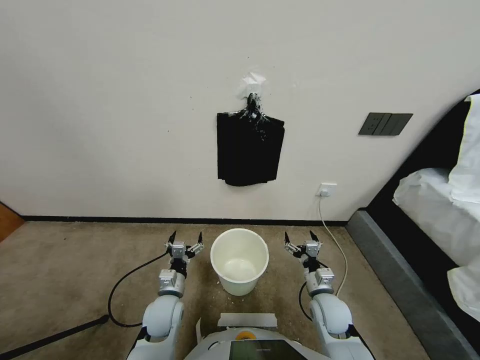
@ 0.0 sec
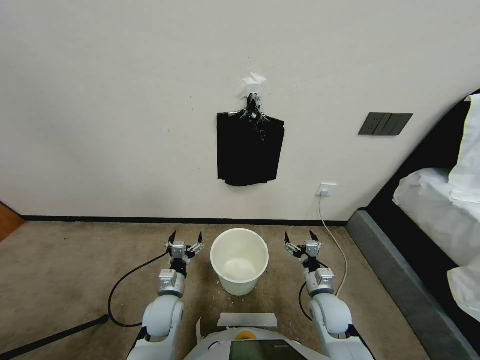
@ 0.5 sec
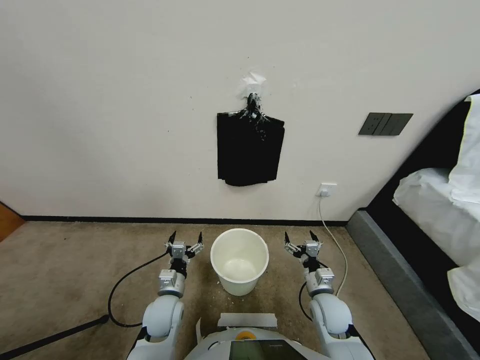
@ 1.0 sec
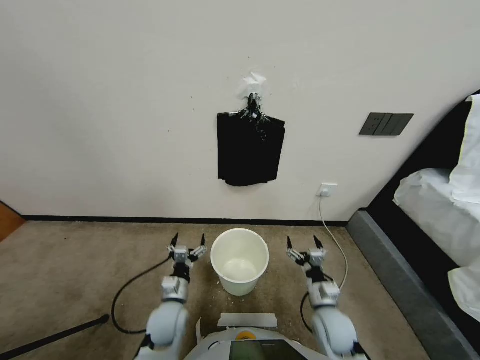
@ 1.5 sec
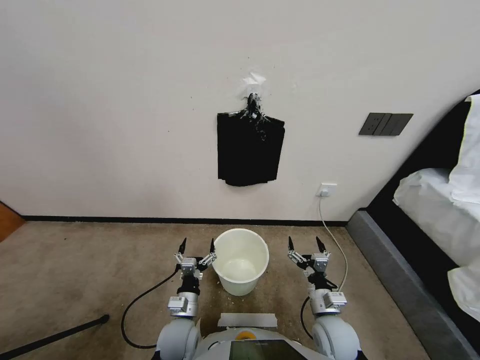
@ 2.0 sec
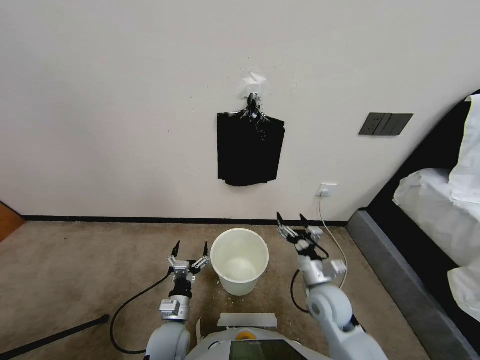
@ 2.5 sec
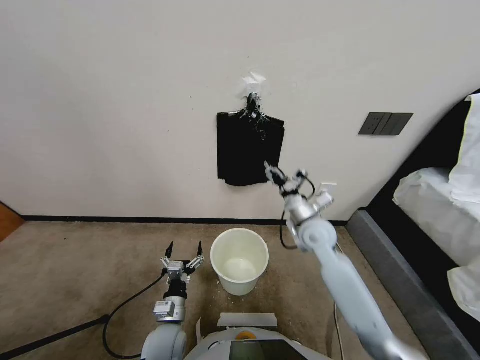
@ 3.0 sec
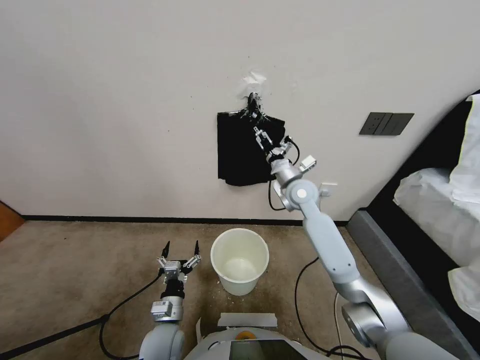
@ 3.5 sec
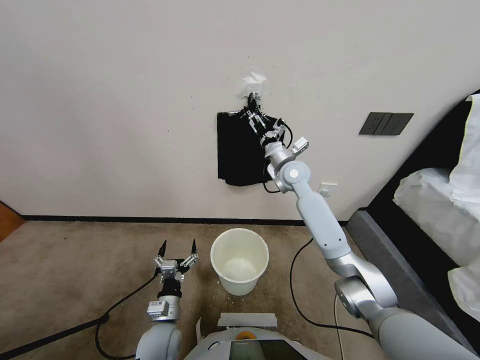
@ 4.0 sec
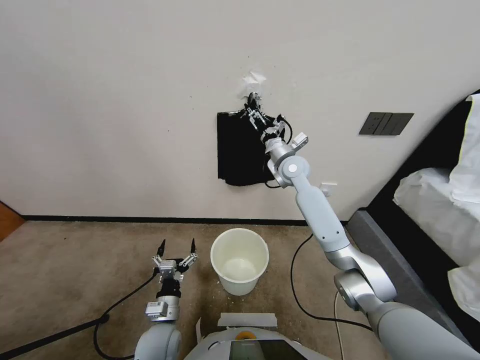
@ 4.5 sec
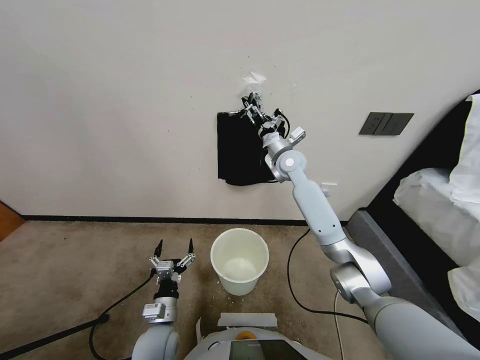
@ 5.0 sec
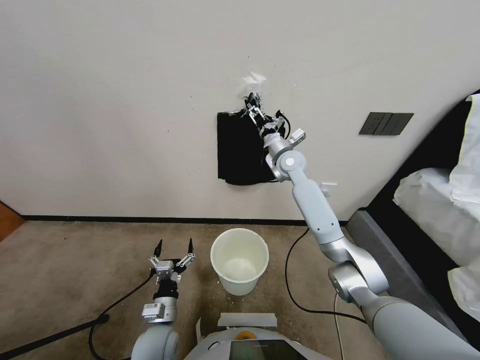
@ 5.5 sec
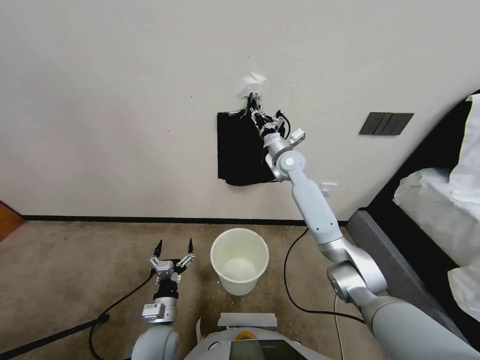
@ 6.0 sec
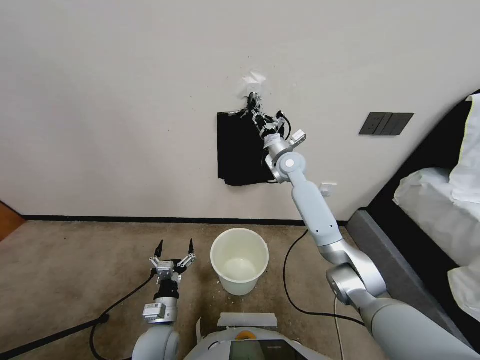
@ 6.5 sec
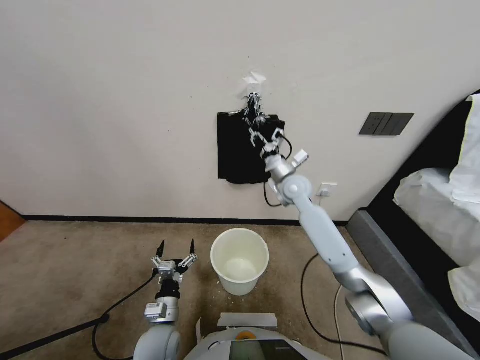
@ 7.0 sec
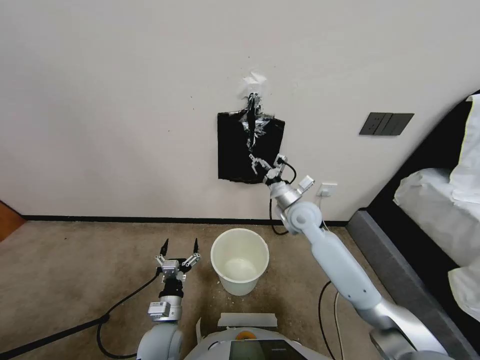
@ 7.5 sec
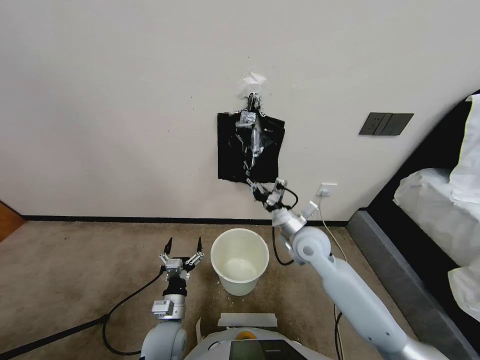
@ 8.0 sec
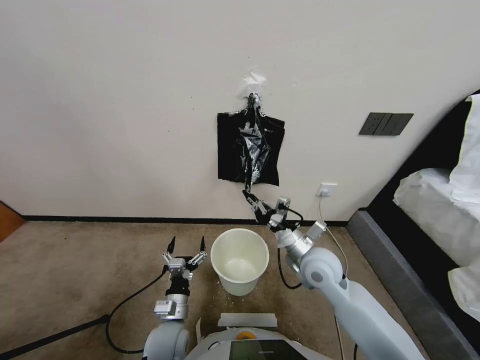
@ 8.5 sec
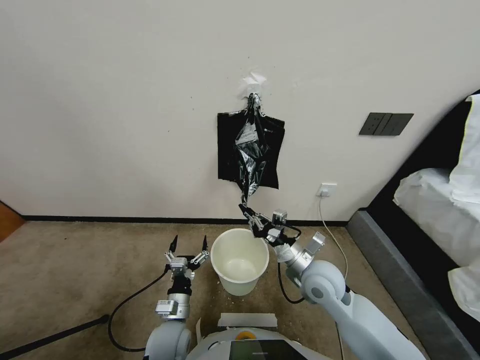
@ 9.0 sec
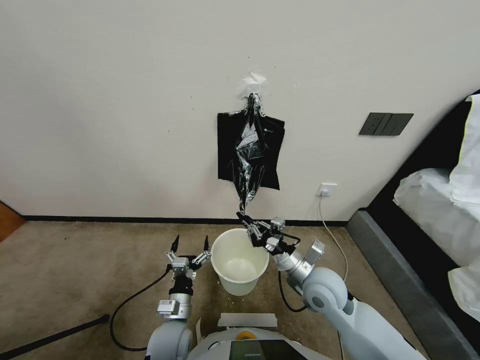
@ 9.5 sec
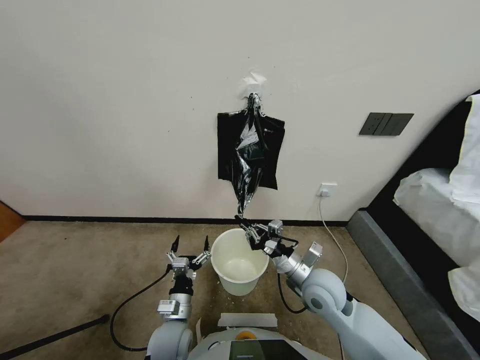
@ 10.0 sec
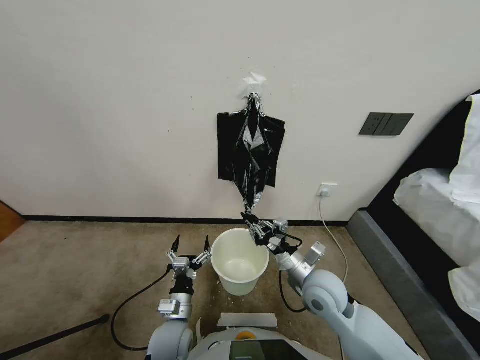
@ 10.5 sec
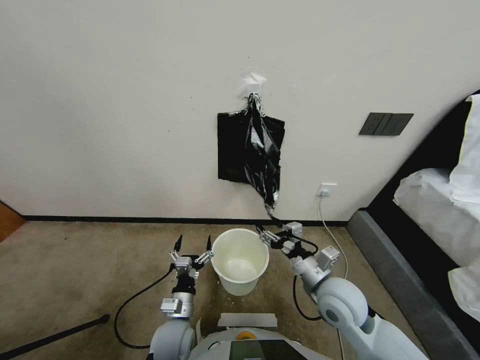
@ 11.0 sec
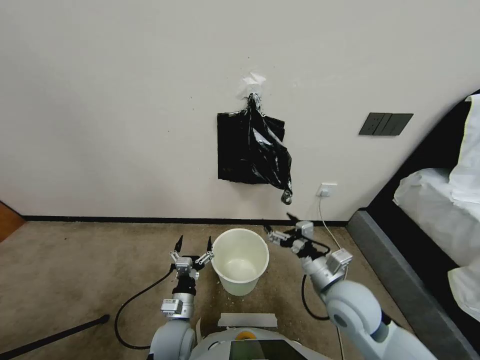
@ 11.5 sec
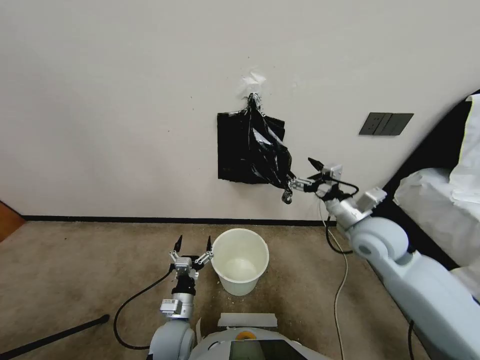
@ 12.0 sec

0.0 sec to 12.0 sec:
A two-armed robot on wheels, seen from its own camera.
Task of the whole recording: Place a trash bag onto the trash bin.
2.0 sec to 4.0 sec: The right gripper heads forward and upward, covering roughly 40 cm.
4.0 sec to 6.0 sec: The right gripper closes up.
6.0 sec to 8.0 sec: The right gripper travels backward and downward by some 25 cm.
8.0 sec to 10.0 sec: The right gripper is displaced backward by roughly 10 cm.
10.0 sec to 12.0 sec: The right gripper shifts some 20 cm upward, to the right and forward, and opens its fingers.

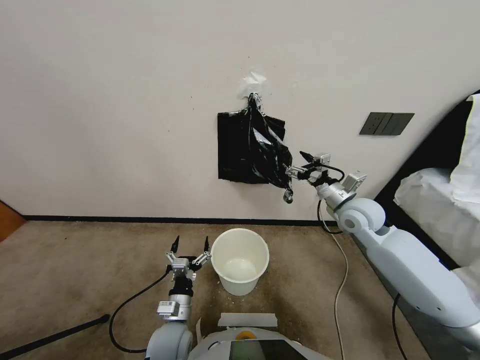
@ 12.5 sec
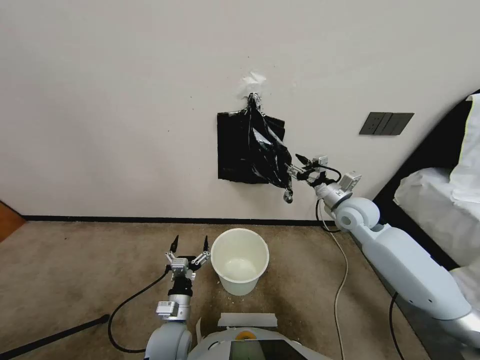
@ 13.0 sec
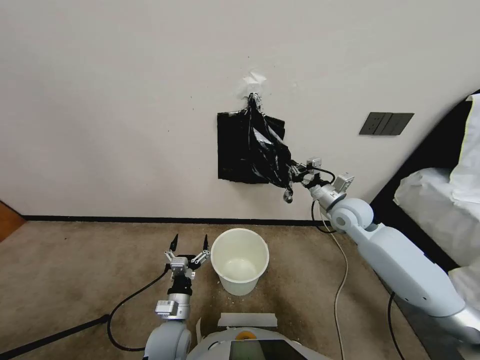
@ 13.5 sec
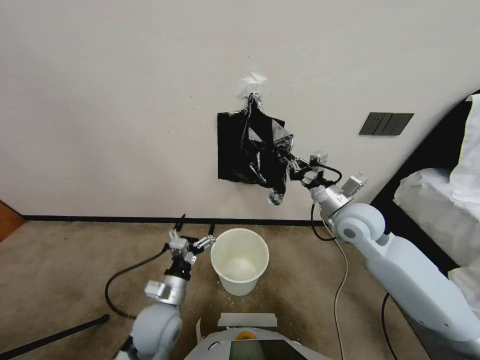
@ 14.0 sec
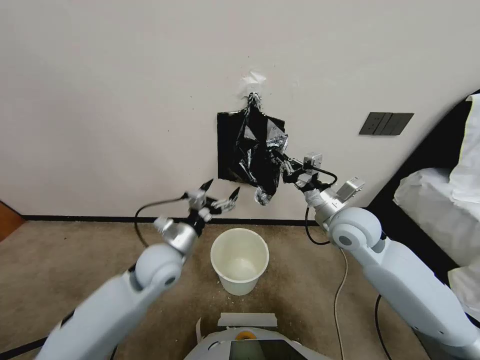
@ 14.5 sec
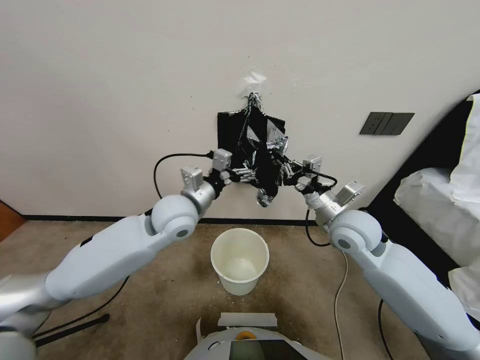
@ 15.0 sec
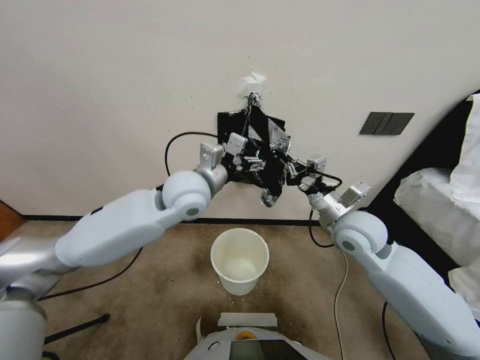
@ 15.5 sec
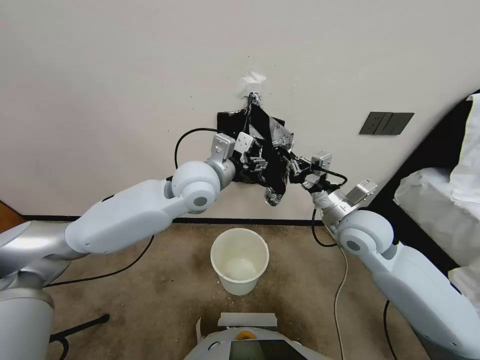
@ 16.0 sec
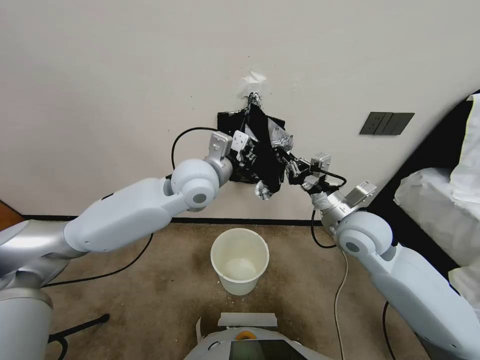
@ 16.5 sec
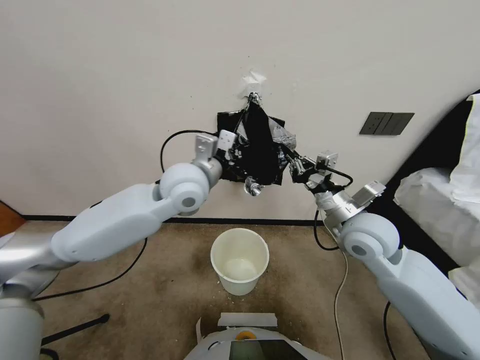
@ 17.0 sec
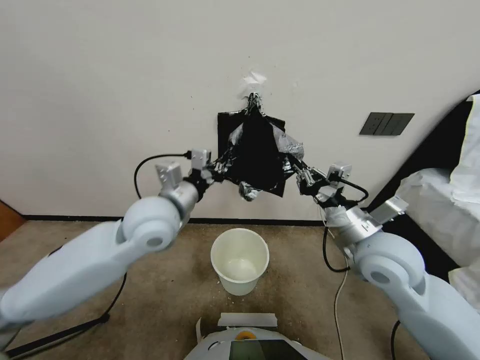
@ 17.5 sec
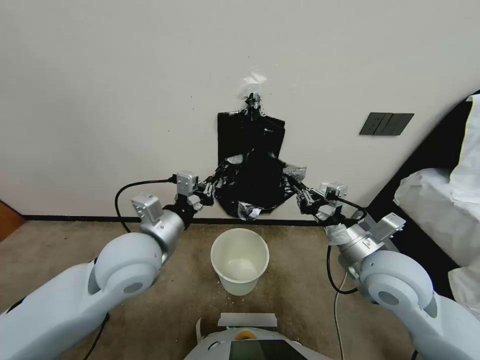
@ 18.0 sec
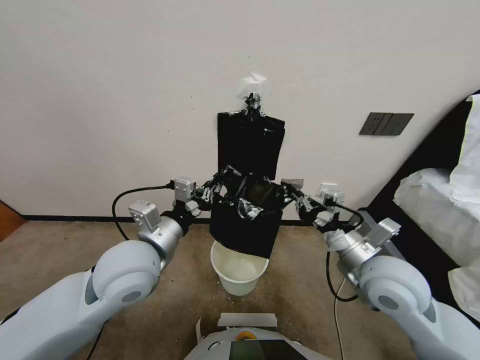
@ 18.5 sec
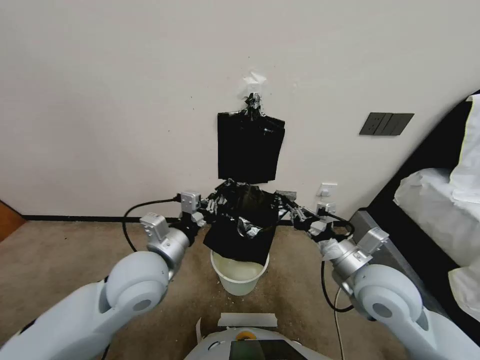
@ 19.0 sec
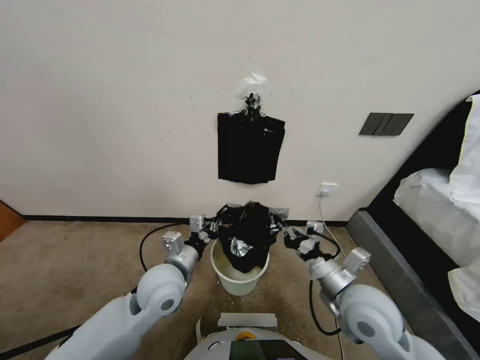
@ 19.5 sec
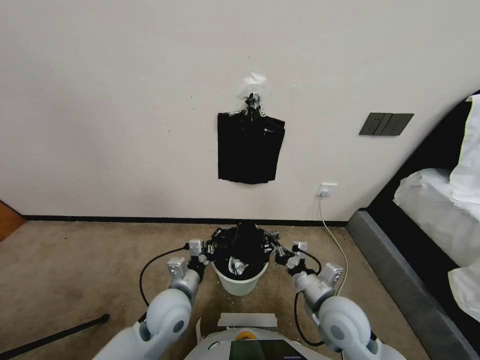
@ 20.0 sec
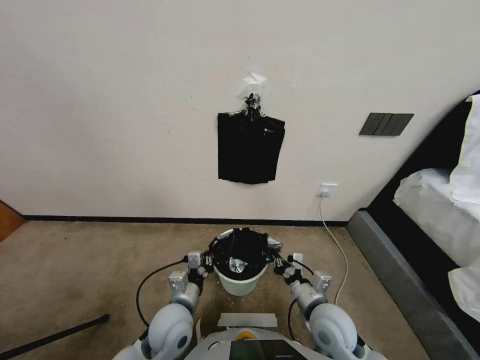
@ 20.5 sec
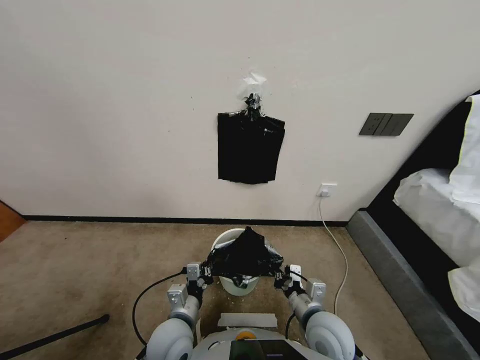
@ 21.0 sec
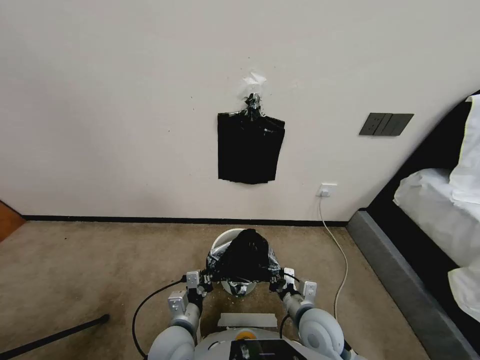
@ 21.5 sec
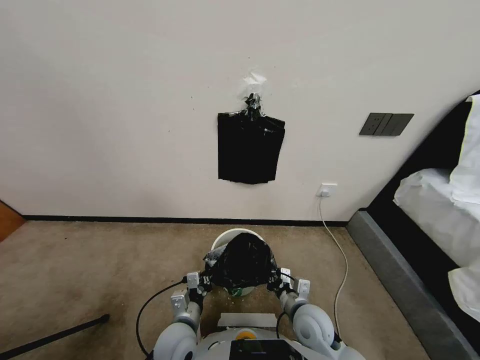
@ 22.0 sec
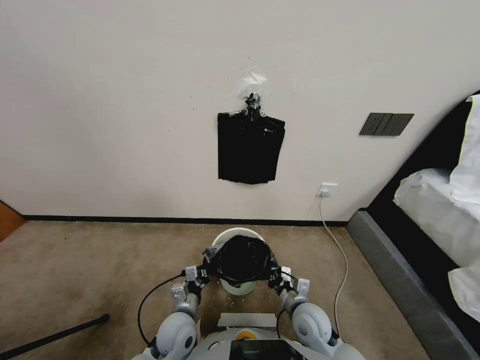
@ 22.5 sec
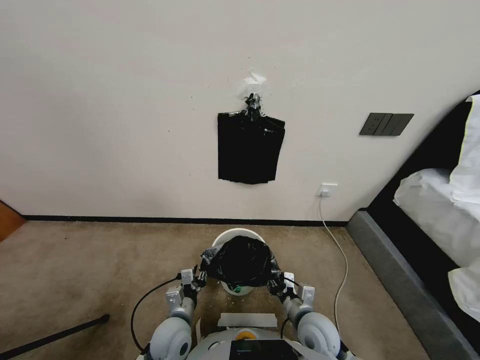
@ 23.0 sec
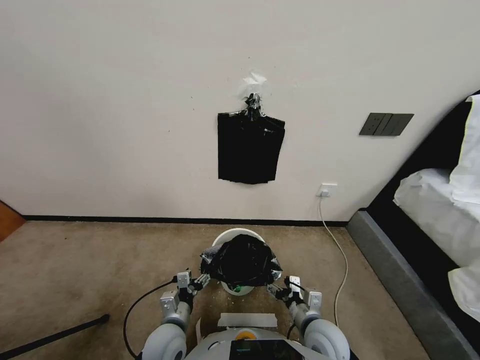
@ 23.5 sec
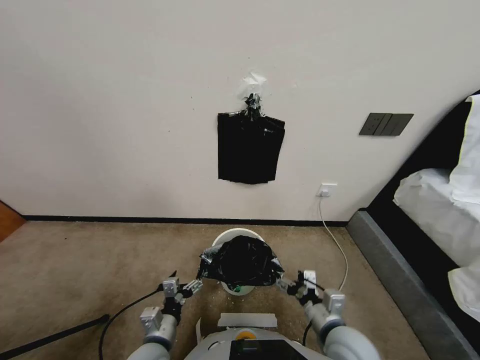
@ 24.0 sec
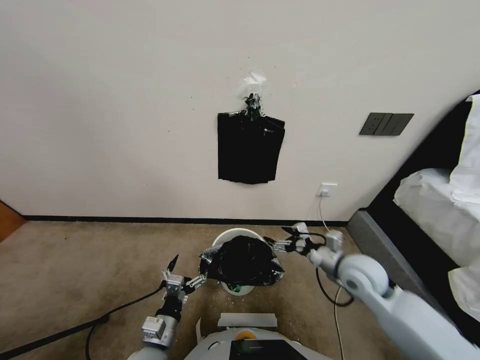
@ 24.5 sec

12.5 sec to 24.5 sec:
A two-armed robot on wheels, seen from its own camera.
Task of the whole recording: Place a trash bag onto the trash bin.
12.5 sec to 14.5 sec: The left gripper travels upward and forward by some 25 cm; the right gripper goes about 10 cm to the left and backward, and closes up.
14.5 sec to 16.5 sec: The left gripper goes roughly 15 cm upward, to the right and forward, and closes its fingers.
16.5 sec to 18.5 sec: The right gripper moves backward, approximately 10 cm; the left gripper moves backward, to the left and downward, roughly 20 cm.
18.5 sec to 20.5 sec: The grippers both shift downward by some 20 cm.
20.5 sec to 22.5 sec: The grippers both shift downward by approximately 5 cm.
22.5 sec to 24.5 sec: The right gripper travels upward, forward and to the right by about 20 cm, and opens up. The left gripper goes some 10 cm backward, and opens.

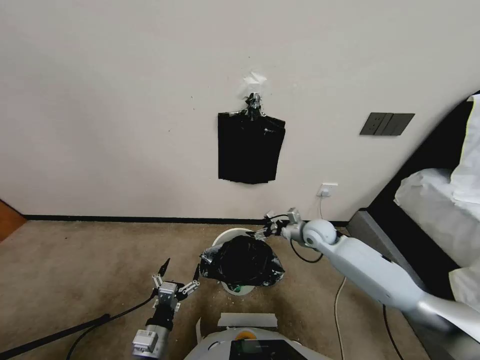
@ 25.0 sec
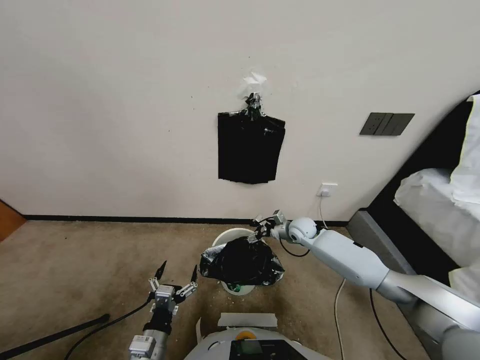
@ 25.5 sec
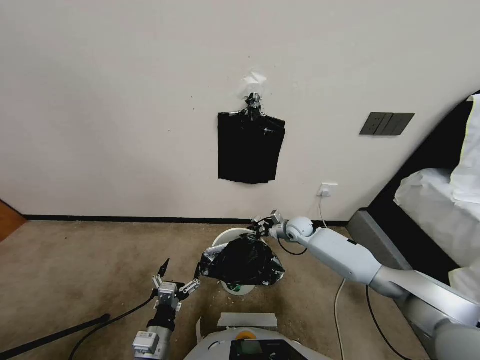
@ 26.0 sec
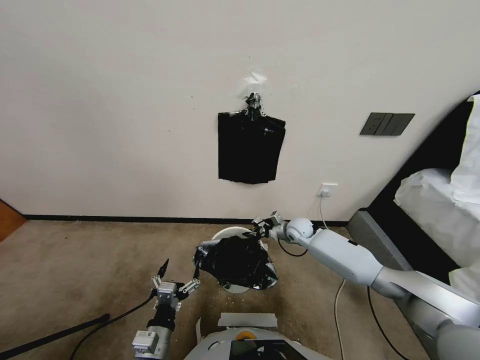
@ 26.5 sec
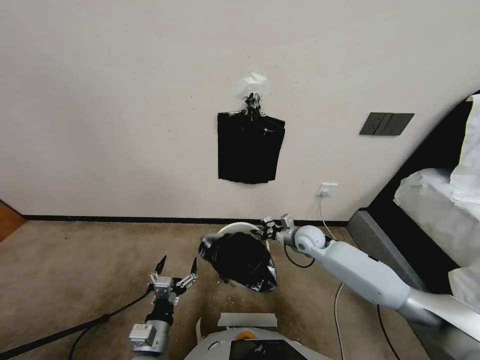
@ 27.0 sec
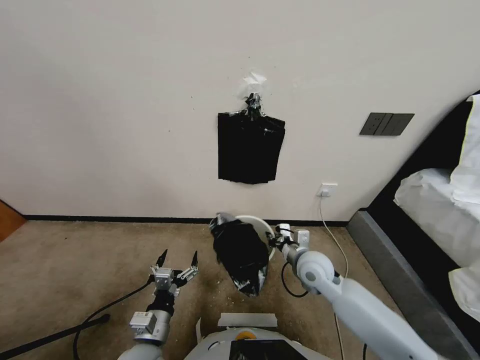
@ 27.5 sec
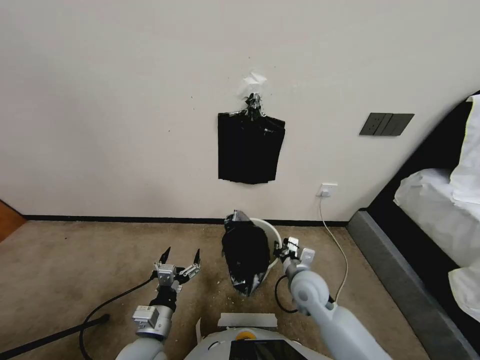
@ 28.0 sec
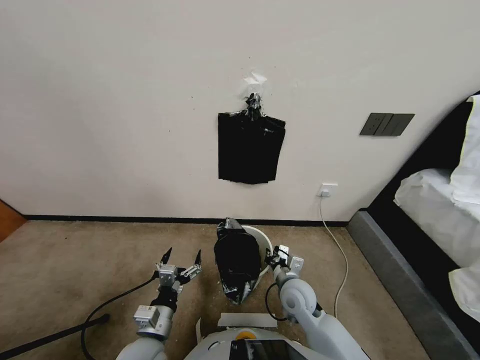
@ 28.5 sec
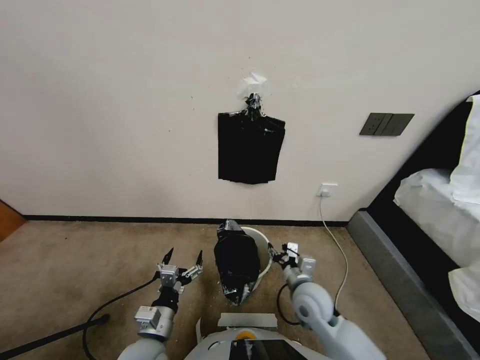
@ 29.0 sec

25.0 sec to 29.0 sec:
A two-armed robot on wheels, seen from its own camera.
Task of the whole recording: Place a trash bag onto the trash bin.
25.0 sec to 27.0 sec: The right gripper is displaced backward by some 5 cm, and closes its fingers.
27.0 sec to 29.0 sec: The right gripper heads backward, covering roughly 15 cm, and opens up.
